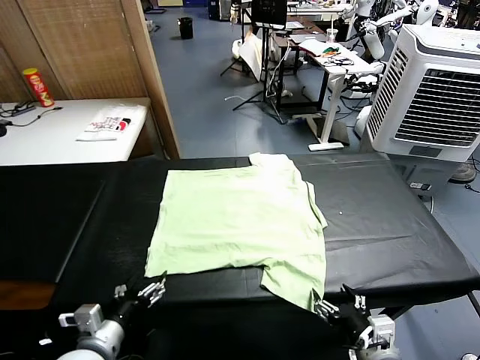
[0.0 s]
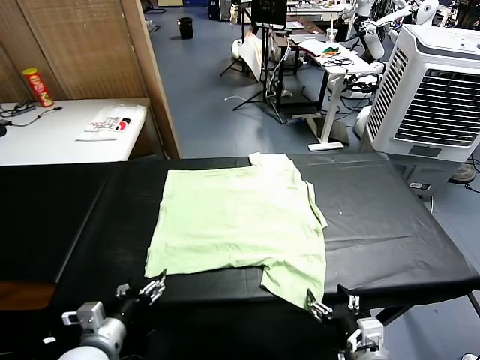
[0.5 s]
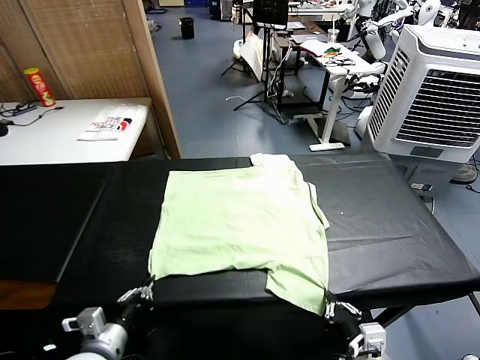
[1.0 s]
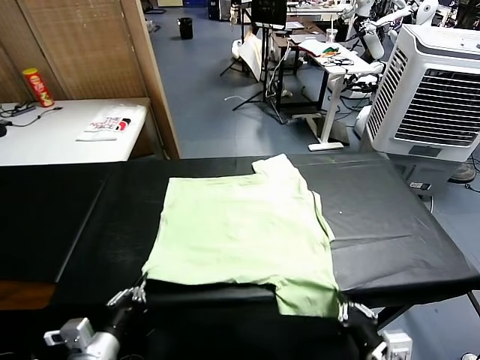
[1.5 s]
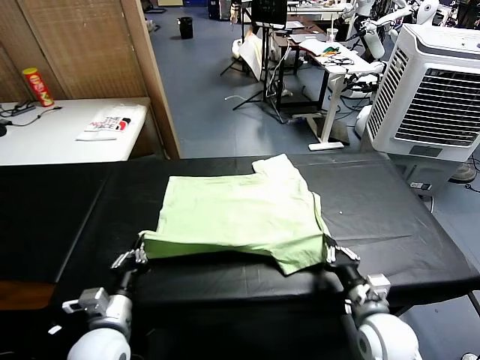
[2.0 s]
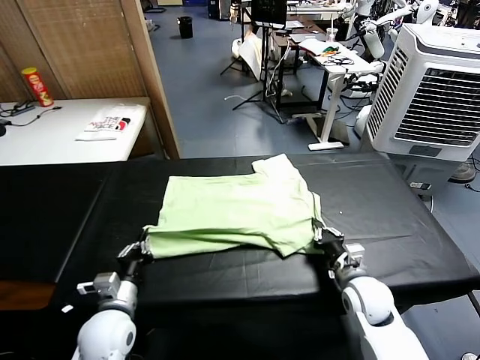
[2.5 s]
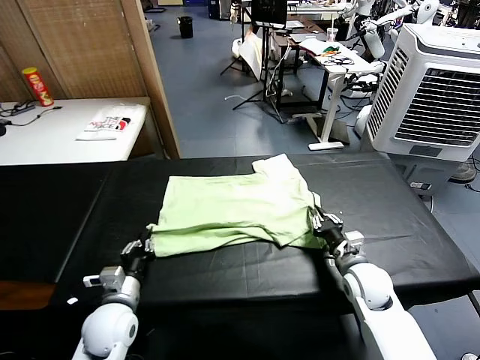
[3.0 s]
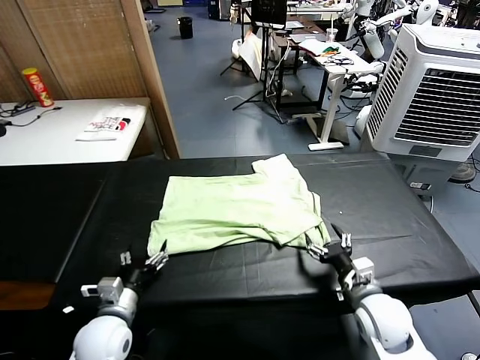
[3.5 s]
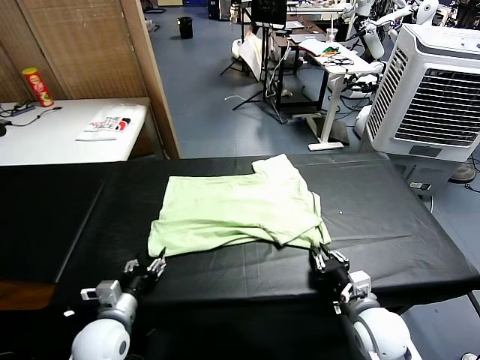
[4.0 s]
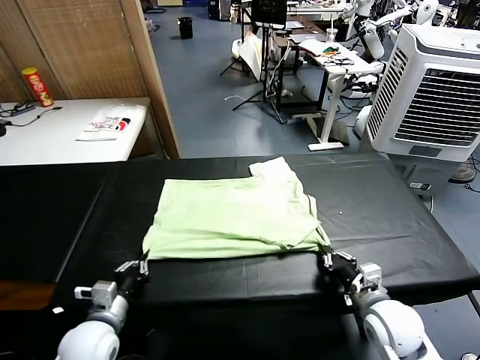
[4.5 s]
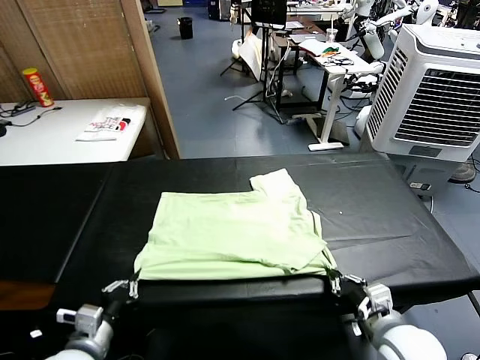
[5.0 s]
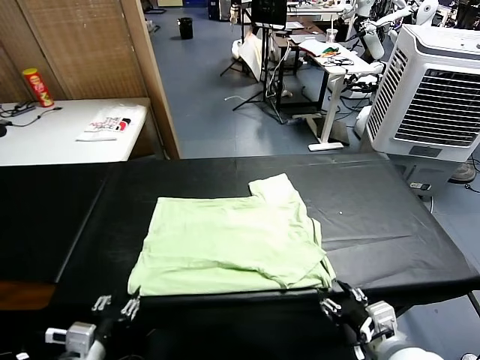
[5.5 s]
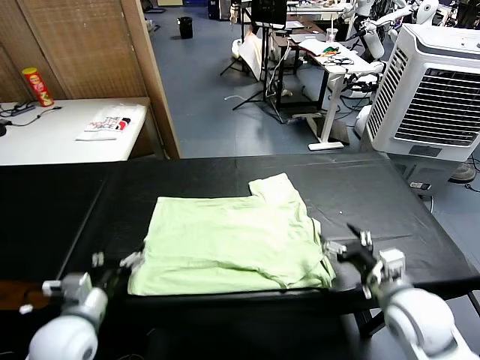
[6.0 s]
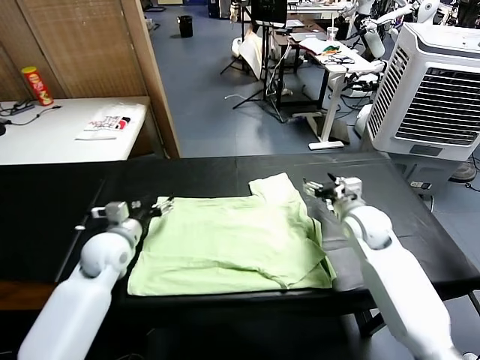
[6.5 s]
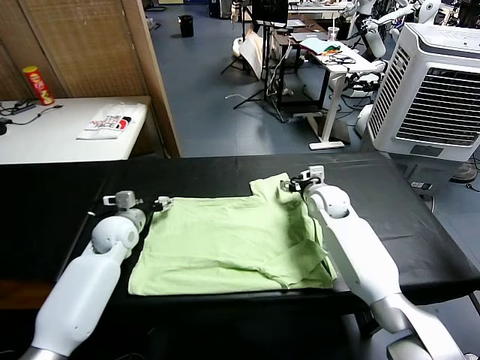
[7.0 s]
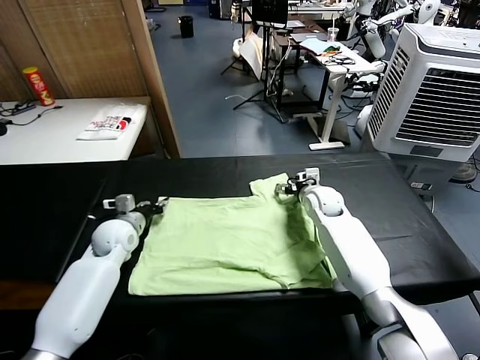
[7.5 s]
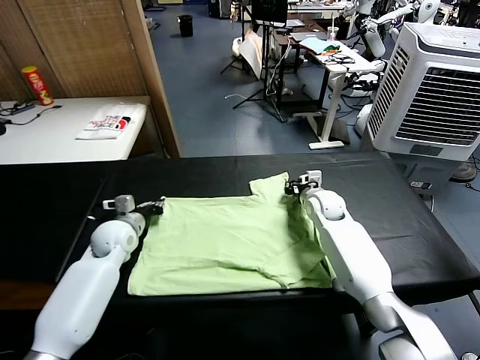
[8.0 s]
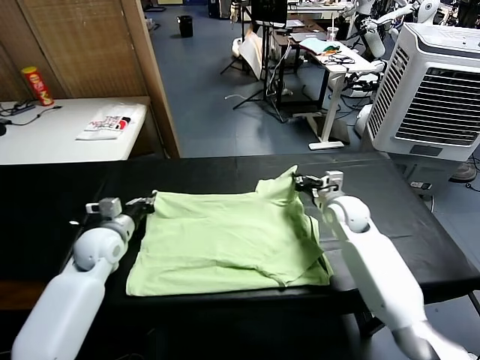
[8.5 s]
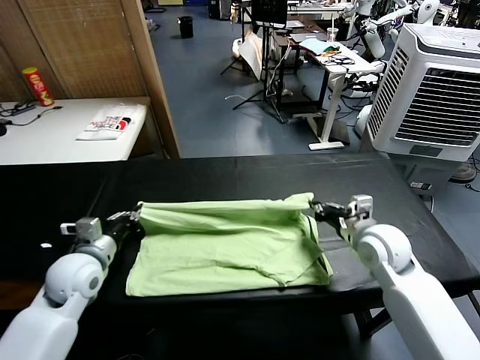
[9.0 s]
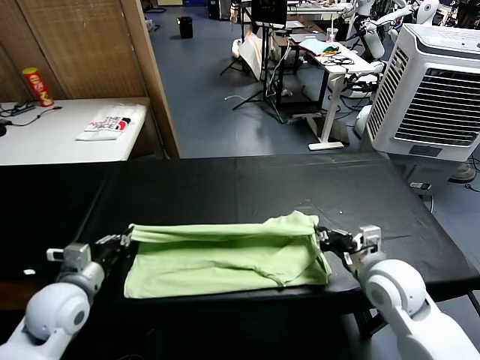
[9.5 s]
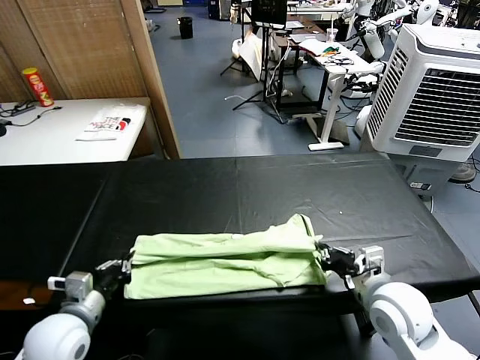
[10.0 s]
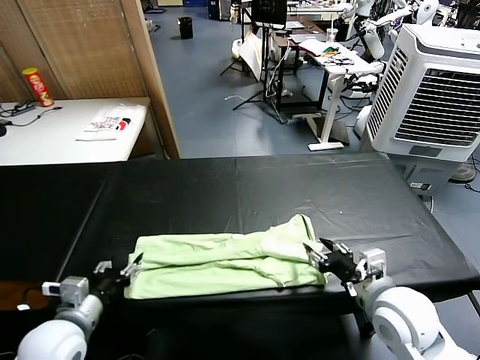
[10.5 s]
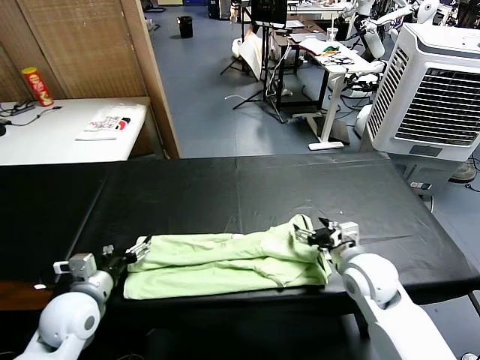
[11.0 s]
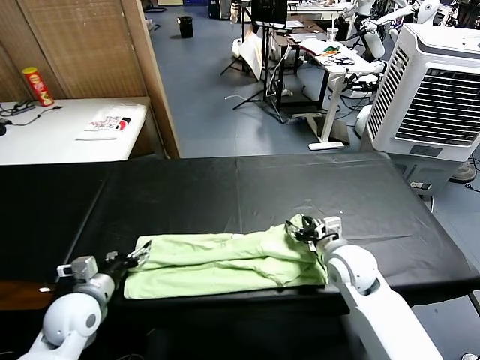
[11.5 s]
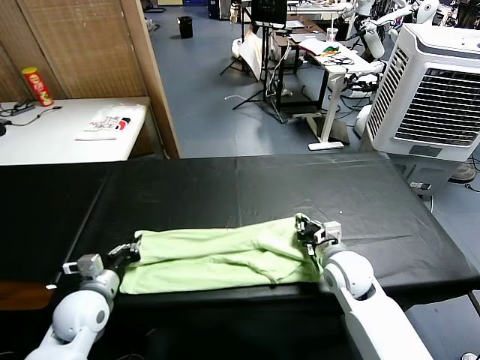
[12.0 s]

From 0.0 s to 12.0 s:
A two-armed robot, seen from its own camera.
Task of the whole recording: fold and organize the clothes.
Step, from 0.0 s to 0.5 s: use both grippers simultaneously to clamp the lower edge of the clothing fabric.
Step, from 1.5 s to 3.0 s: use both grippers to drag the lower edge of the fabric forward and fold it over the upper edge.
Step, from 3.5 s to 5.5 s: Drag the clothes downward with both gripper.
Step, from 6.0 s to 7.5 s: use both grippers simultaneously to clamp the upper edge of the clothing fabric.
Step, from 8.0 s to 10.5 s: use both grippers to drag the upper edge of the fabric backward and fold it over the lower edge.
From 2.0 s to 4.0 s: The right gripper goes forward and returns, some 5 cm each way, and opens, then closes once more; the left gripper opens.
From 4.0 s to 6.0 s: The right gripper heads upward and forward, covering approximately 10 cm, and opens up. The left gripper moves upward, about 10 cm, moves approximately 10 cm backward and comes back, and opens its fingers.
From 6.0 s to 8.0 s: The two grippers go some 20 cm forward. The right gripper closes. The left gripper closes.
From 8.0 s to 10.0 s: Both grippers travel together backward, roughly 25 cm.
From 10.0 s to 12.0 s: The right gripper moves forward and downward, about 15 cm, and opens, then closes again. The left gripper moves forward, roughly 5 cm, and opens, then closes again.

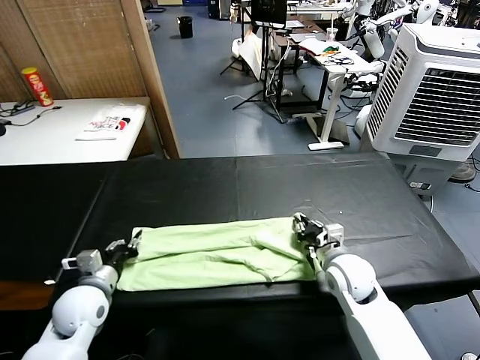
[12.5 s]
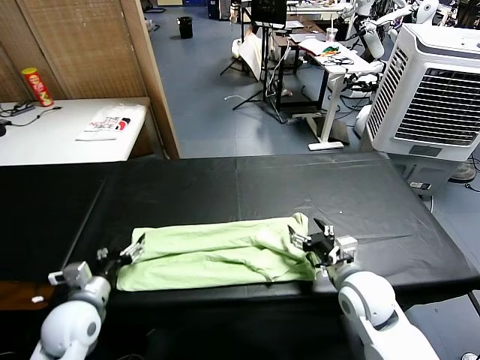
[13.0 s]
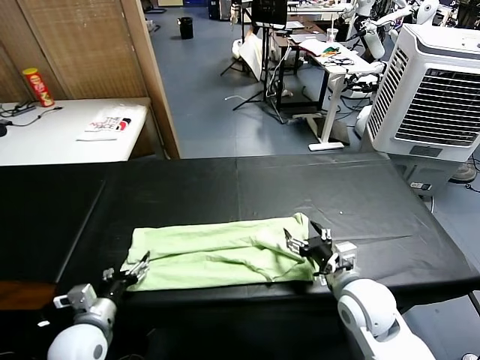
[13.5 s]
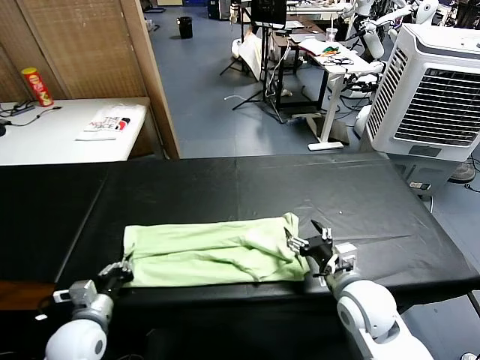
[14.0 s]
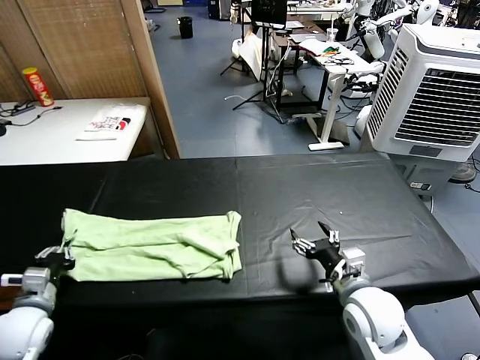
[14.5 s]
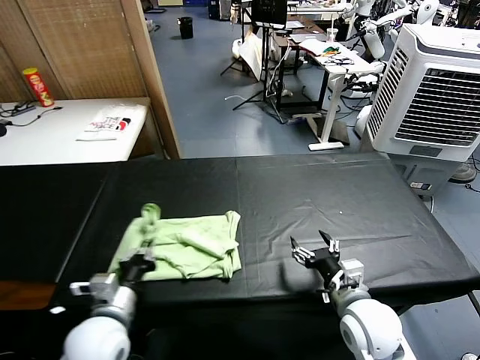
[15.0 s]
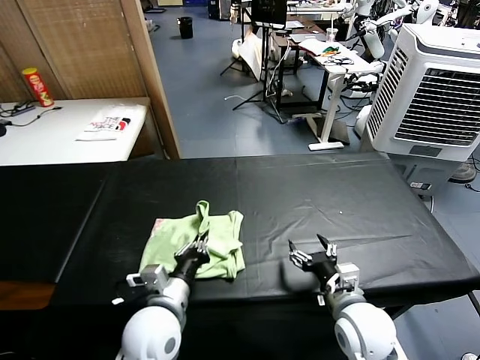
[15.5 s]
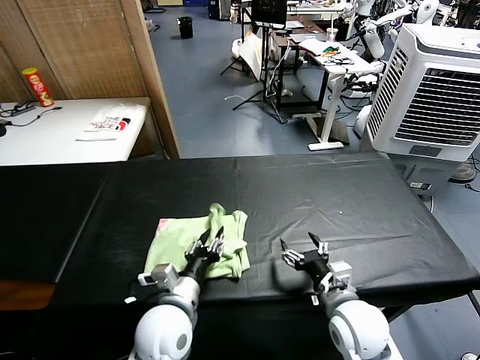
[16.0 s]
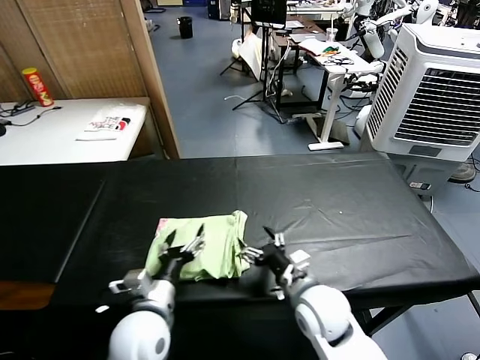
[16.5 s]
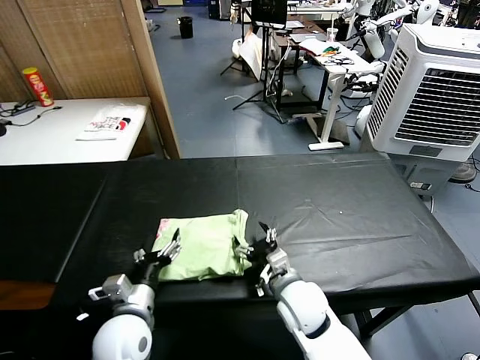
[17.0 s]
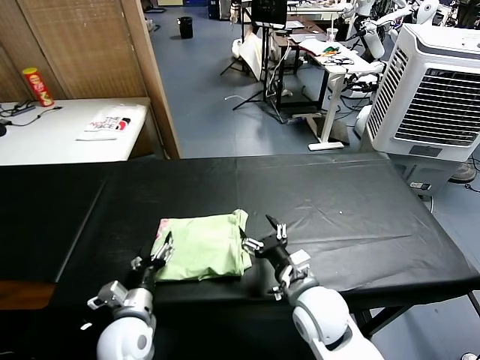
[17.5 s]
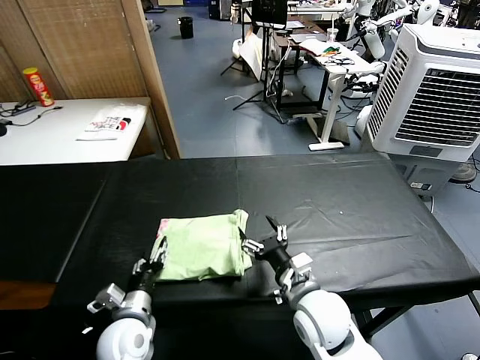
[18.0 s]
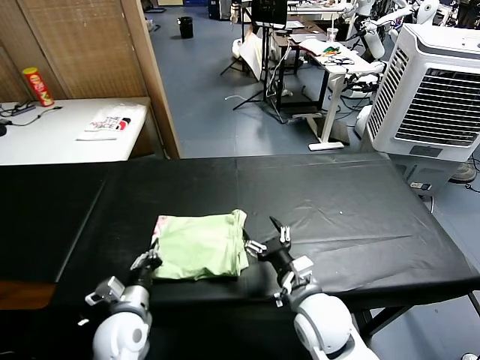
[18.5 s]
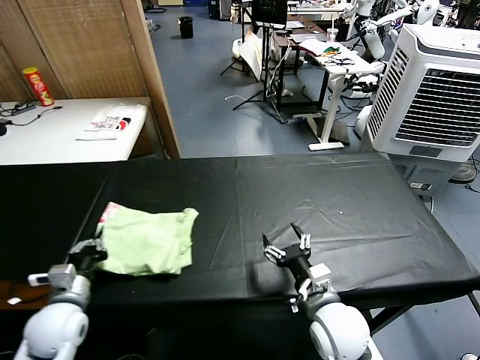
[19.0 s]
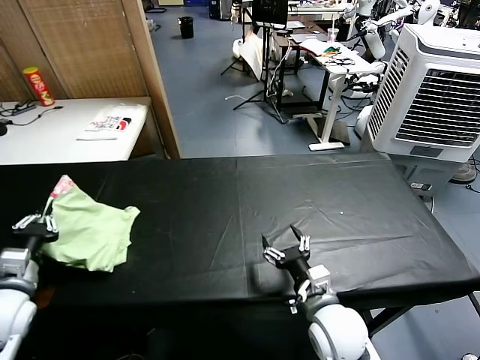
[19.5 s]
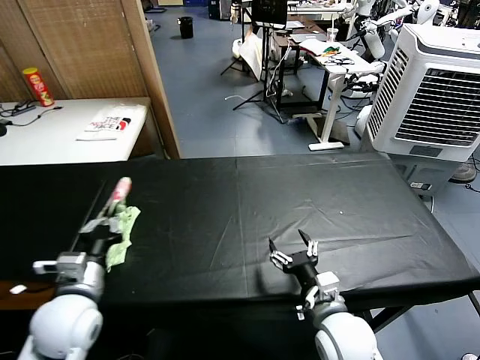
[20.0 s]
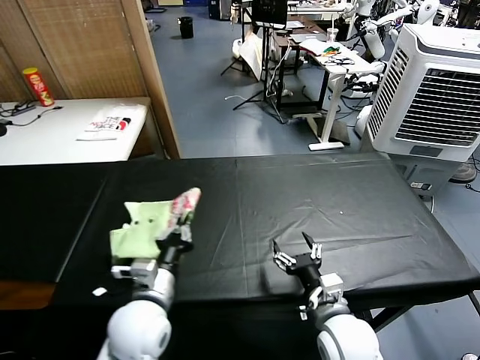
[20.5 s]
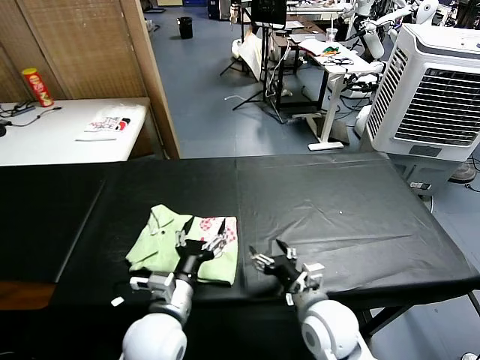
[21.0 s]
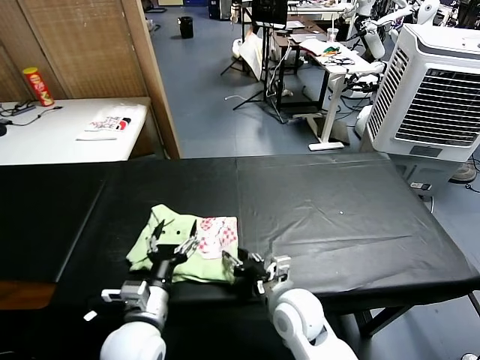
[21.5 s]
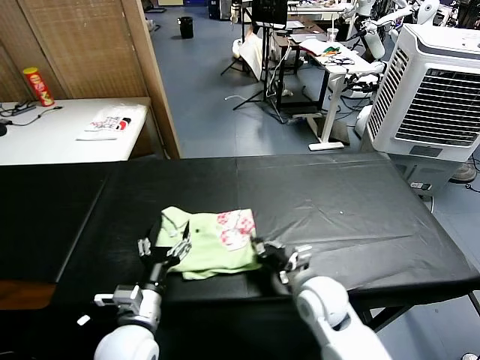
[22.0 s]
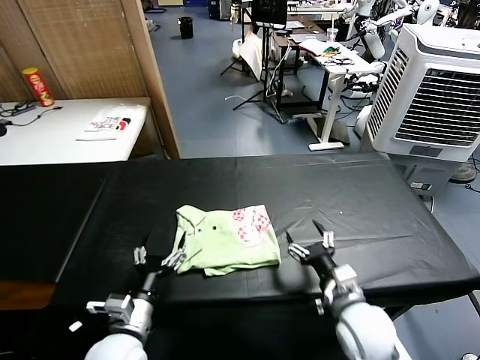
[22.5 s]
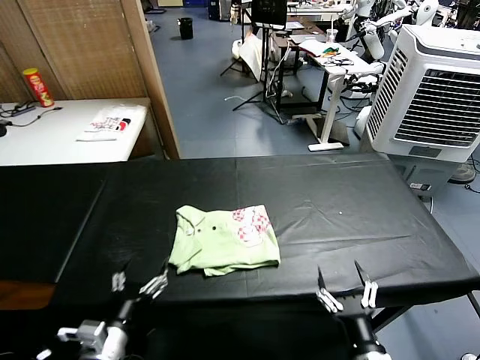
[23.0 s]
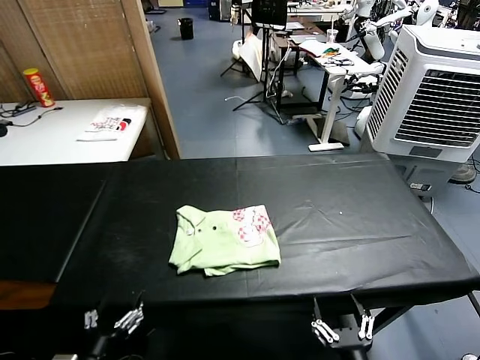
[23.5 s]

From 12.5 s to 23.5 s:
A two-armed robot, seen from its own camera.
Task of the whole recording: fold and organize the clothes.
Step, from 14.0 s to 16.0 s: use the left gripper to drag the left edge of the fabric to the left and folds it over the right edge.
Step, from 16.5 s to 20.5 s: Flip the folded clothes over with left gripper.
Step, from 21.0 s to 22.0 s: Drag the clothes to the center of the table.
From 12.5 s to 14.5 s: The right gripper heads backward, covering roughly 10 cm, and opens. Meanwhile the left gripper travels to the left and backward by some 10 cm, and opens and closes again.
From 14.5 s to 16.0 s: The left gripper heads to the right, covering about 30 cm, and opens up.
From 16.0 s to 18.0 s: The right gripper shifts some 5 cm to the left. Meanwhile the left gripper travels to the left and downward by roughly 10 cm.
From 18.0 s to 20.0 s: The left gripper is displaced upward and to the left by about 15 cm, and closes up, while the right gripper ends up roughly 5 cm from where it was.
From 20.0 s to 21.5 s: The right gripper moves to the left and forward, roughly 10 cm. Meanwhile the left gripper moves to the right, some 15 cm, and opens up.
From 21.5 s to 23.5 s: The left gripper heads backward and to the left, covering some 15 cm. The right gripper heads backward and to the right, covering about 25 cm, and closes and opens again.

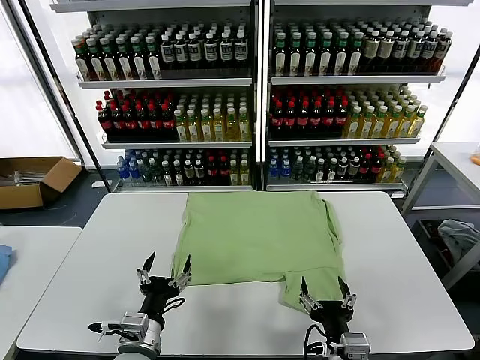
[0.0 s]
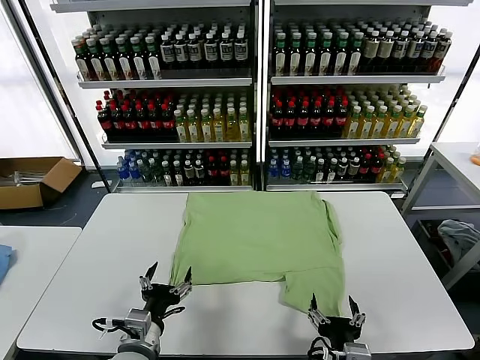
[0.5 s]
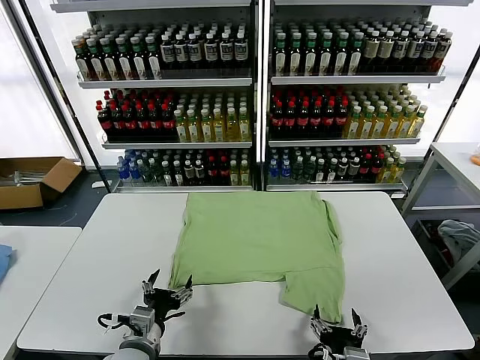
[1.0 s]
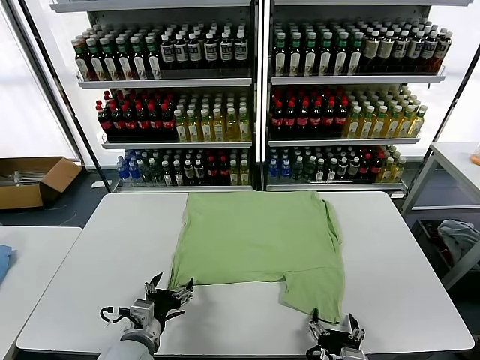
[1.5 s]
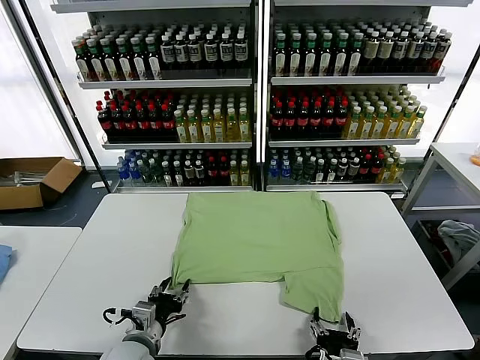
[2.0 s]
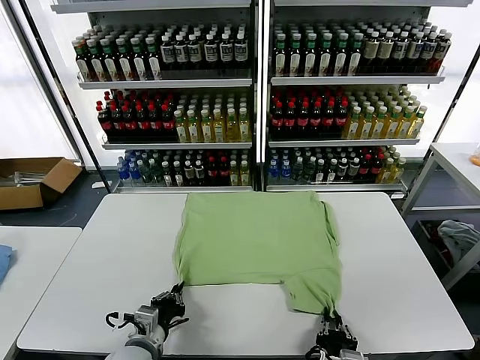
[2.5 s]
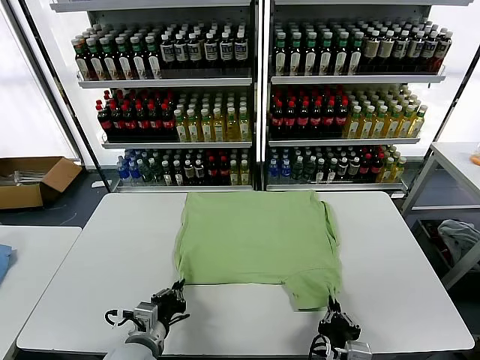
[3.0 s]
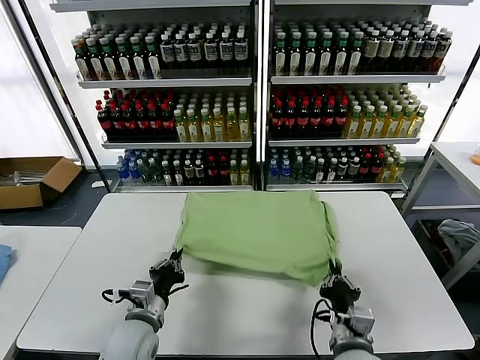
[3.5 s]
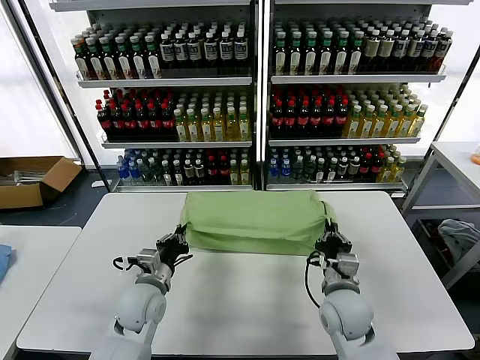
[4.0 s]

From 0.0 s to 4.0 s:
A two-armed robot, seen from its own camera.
Task of the whole recording: fold and organize the clothes.
Step, from 0.0 s to 2.5 s: use both grippers simultaneously to clamp the lower edge of the clothing fabric.
From 2.0 s to 4.0 s: The left gripper goes some 10 cm forward, and closes up, while the right gripper heads forward, covering about 20 cm, and closes its fingers.
